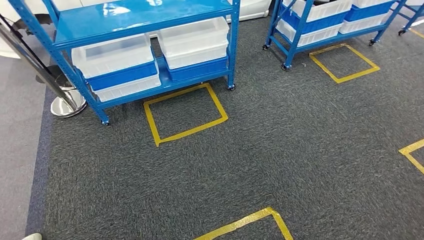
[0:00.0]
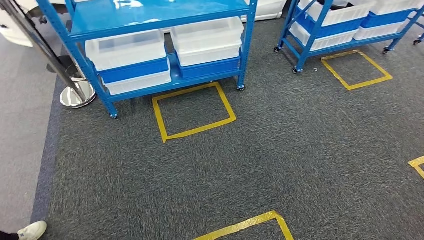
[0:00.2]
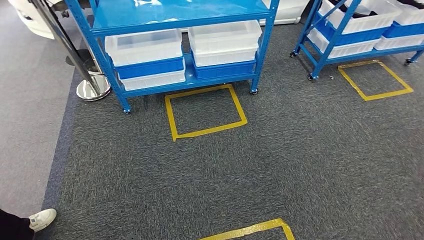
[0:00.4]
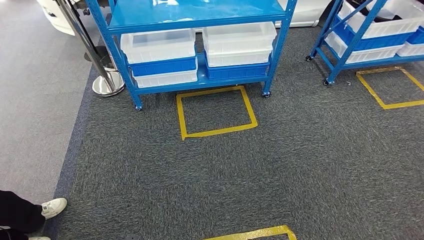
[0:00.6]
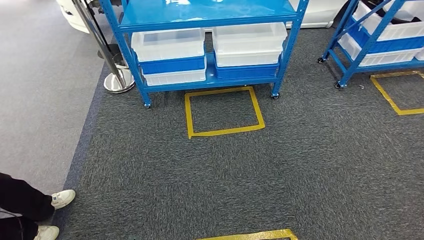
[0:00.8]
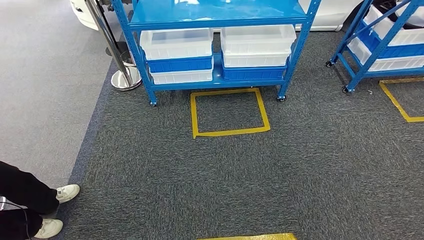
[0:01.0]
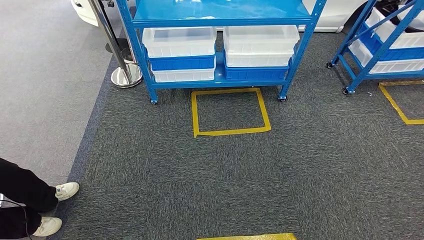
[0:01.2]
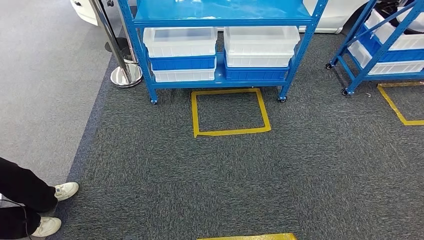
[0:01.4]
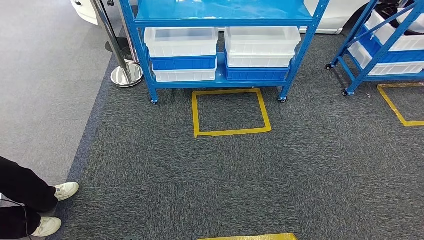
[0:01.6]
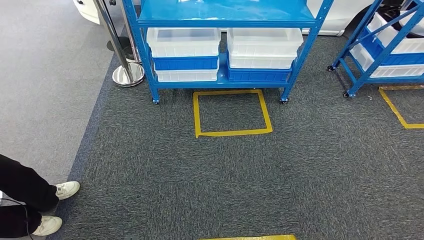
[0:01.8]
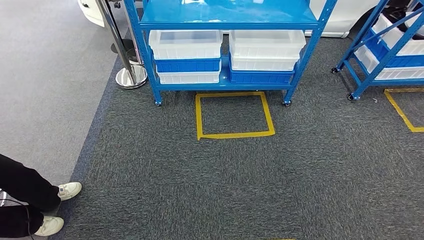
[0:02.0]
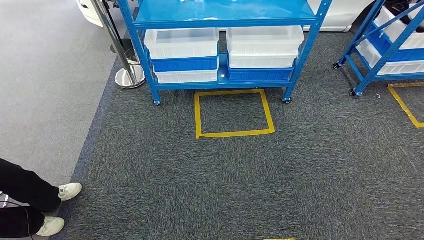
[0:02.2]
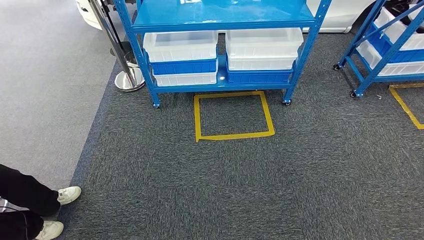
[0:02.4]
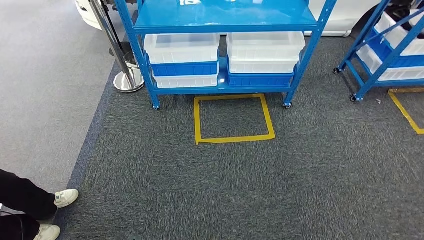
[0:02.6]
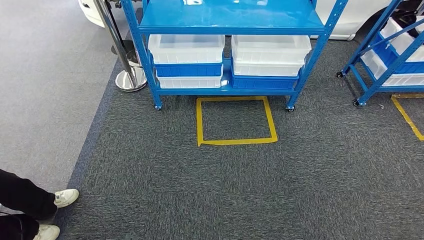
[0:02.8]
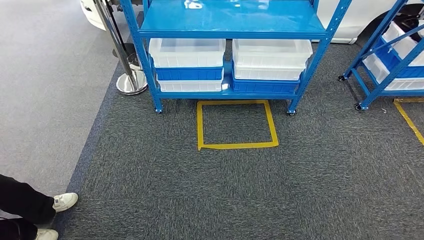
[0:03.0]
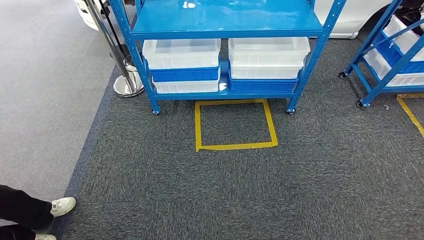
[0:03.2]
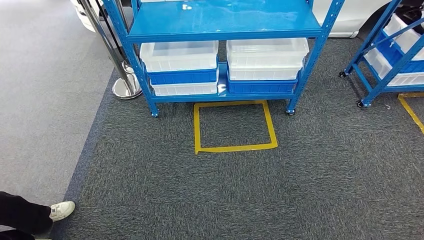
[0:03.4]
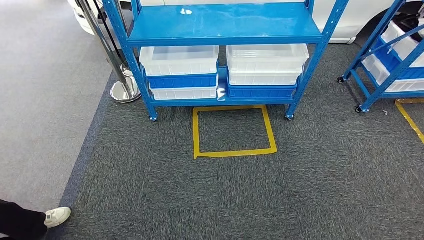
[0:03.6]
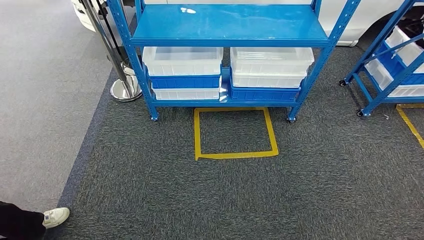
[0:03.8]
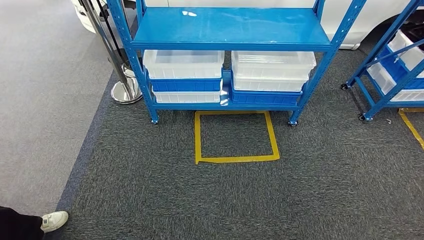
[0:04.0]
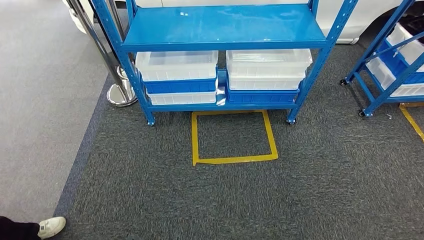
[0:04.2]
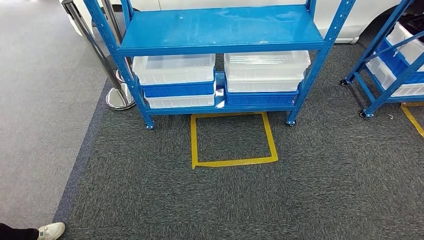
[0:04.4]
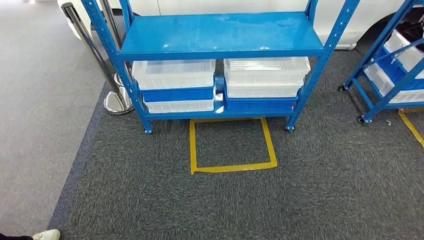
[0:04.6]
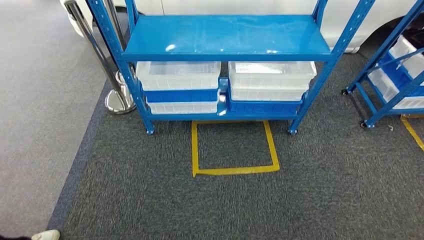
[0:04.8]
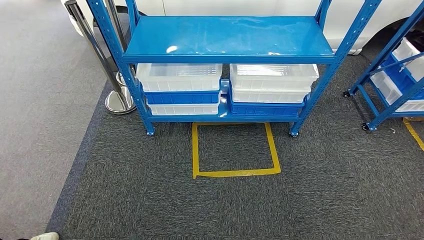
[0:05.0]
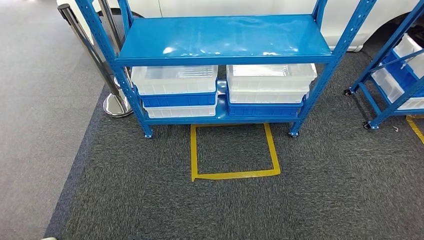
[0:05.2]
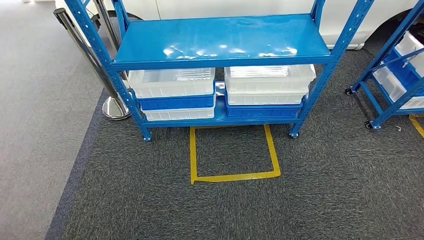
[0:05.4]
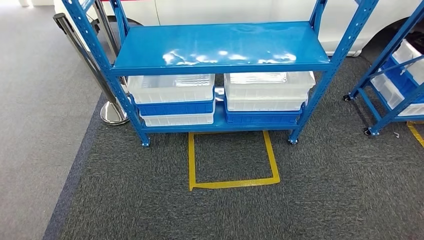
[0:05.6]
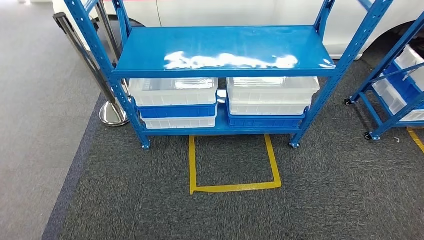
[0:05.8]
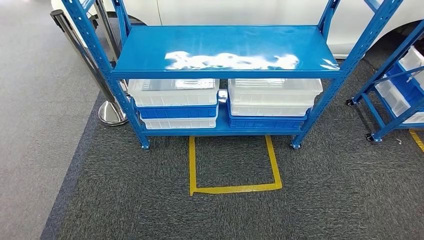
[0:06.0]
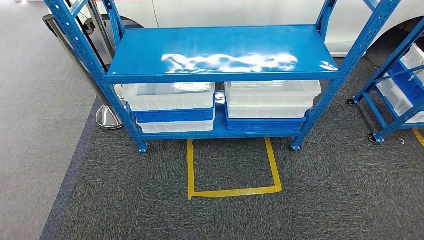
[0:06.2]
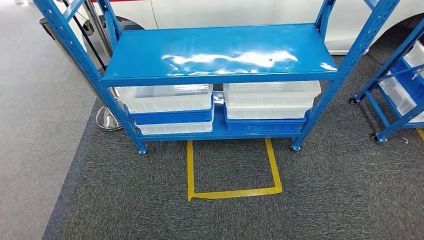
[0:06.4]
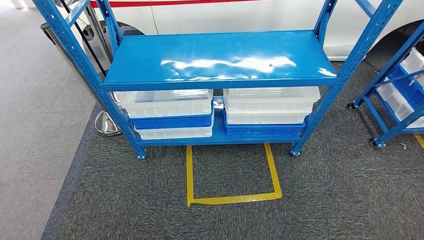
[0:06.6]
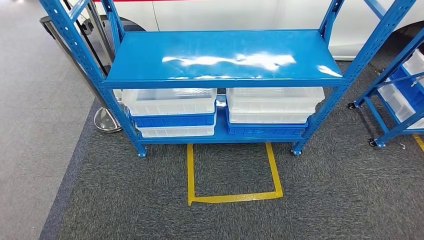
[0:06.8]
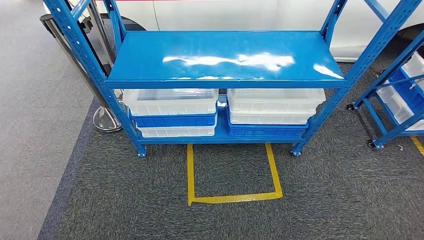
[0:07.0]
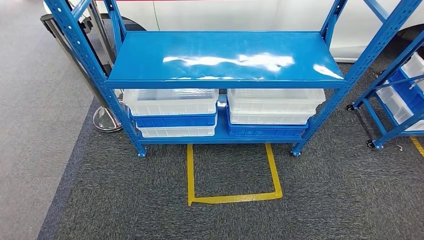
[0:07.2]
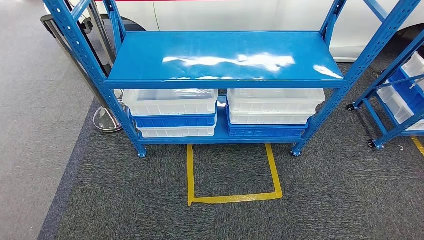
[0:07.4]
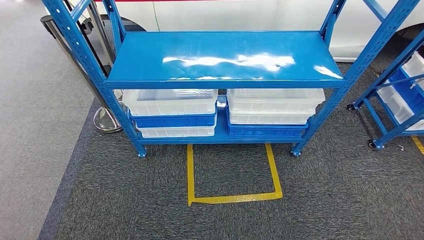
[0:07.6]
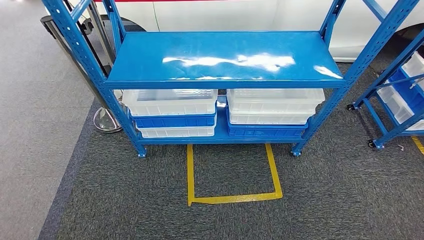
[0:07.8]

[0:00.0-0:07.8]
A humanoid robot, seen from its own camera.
Step, 0:00.0 to 0:07.8: Return to the initial position at the shelf.
